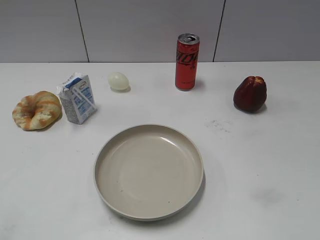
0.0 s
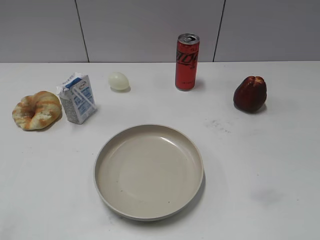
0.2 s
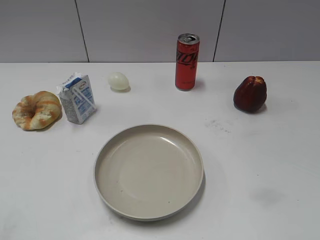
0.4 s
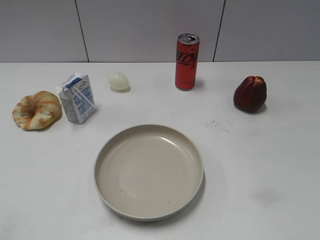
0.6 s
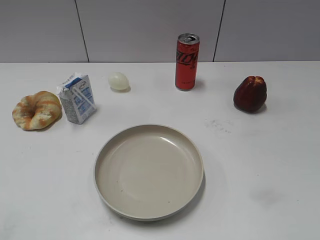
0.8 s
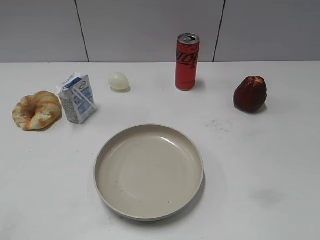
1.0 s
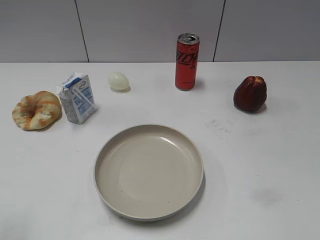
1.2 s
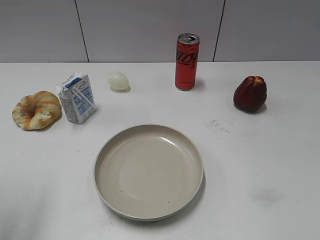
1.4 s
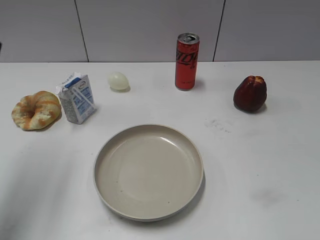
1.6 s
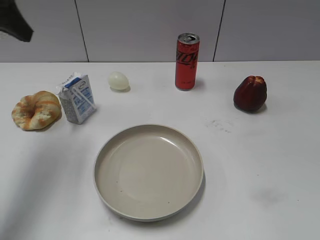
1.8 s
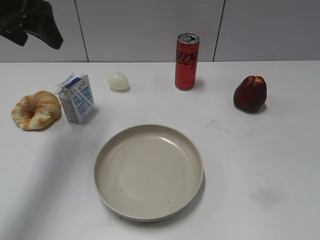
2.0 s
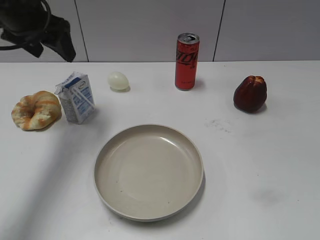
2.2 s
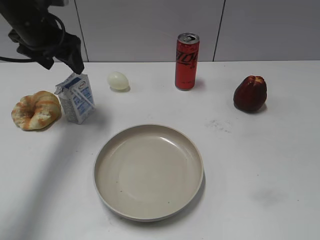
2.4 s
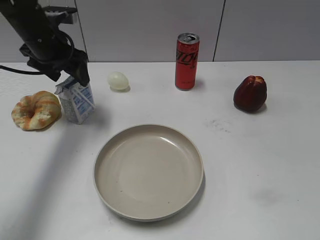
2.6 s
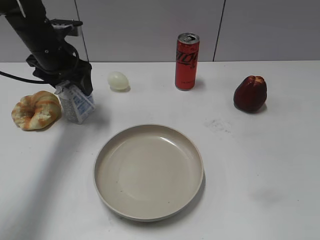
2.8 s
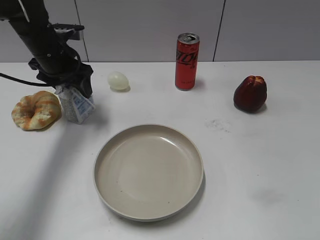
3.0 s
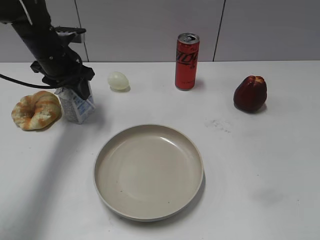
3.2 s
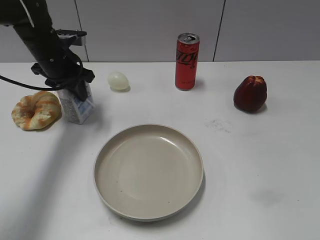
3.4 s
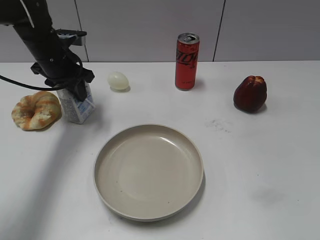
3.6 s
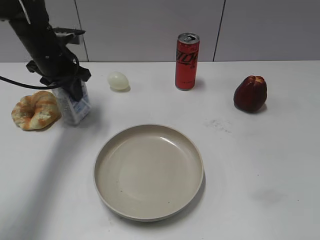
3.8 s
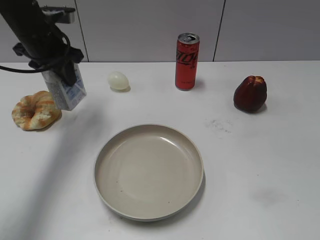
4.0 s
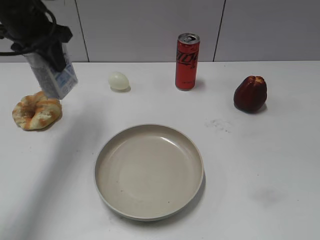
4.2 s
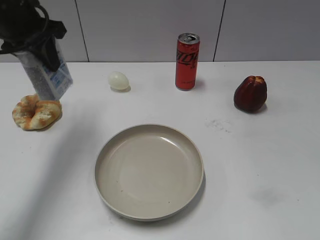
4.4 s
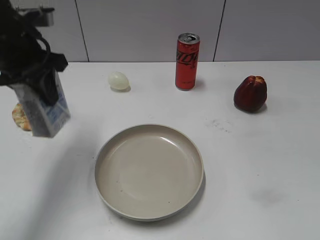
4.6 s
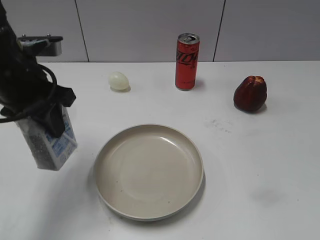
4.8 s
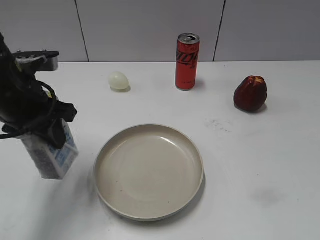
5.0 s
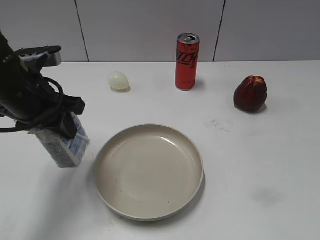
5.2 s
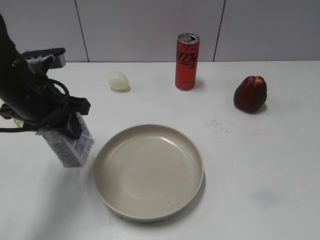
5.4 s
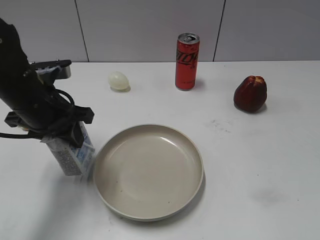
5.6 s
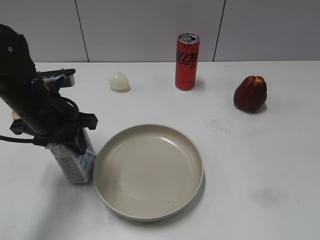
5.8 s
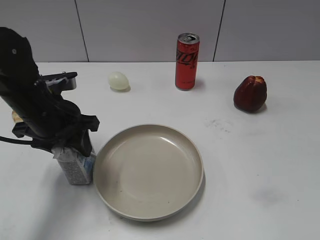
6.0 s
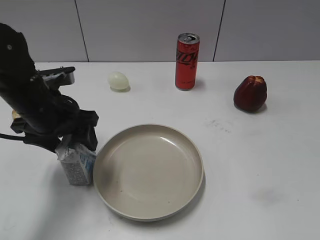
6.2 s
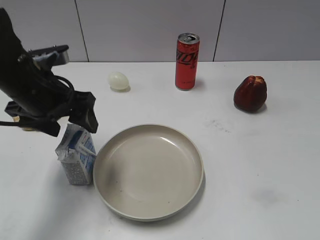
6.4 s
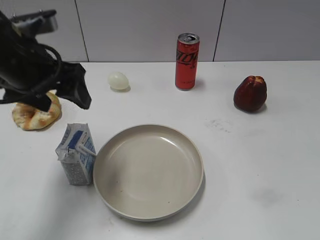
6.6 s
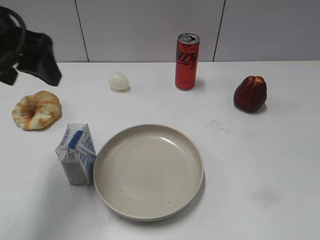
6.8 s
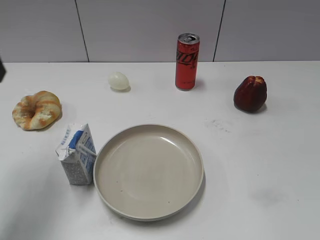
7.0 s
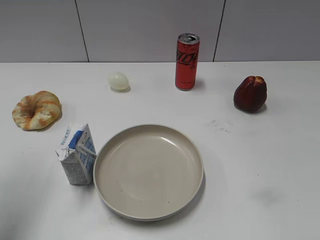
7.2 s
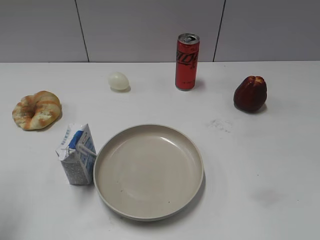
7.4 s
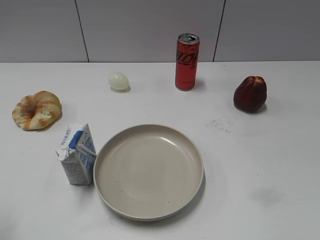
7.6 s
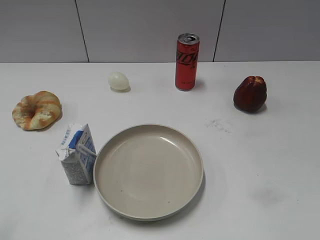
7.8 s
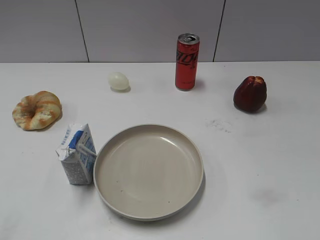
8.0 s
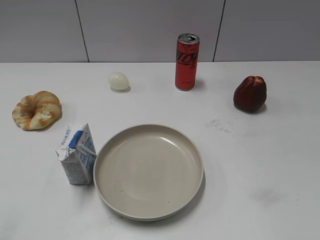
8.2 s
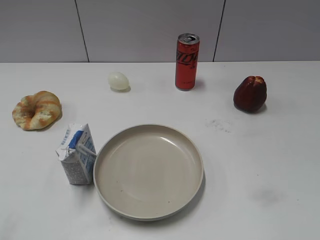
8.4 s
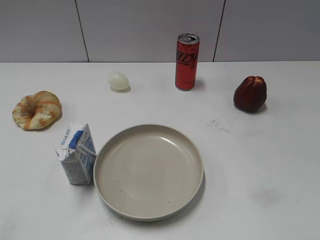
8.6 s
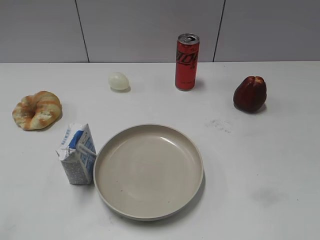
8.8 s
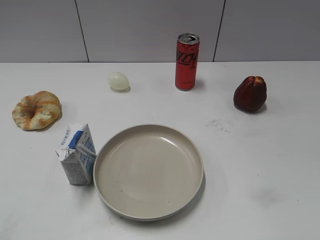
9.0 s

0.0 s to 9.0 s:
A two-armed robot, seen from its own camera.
Step, 0.8 to 3.6 s: Grasp the milk with left gripper.
Step, 4.0 to 6.2 s: Place the milk on the table with left gripper.
1.6 to 3.0 s: The left gripper goes about 25 cm forward, downward and to the right.
3.0 to 4.4 s: The left gripper heads upward and backward, covering some 10 cm, and closes.
4.4 to 6.0 s: The left gripper goes some 15 cm downward and backward.
6.0 to 7.6 s: The left gripper travels backward, to the left and upward by about 25 cm, and opens up.

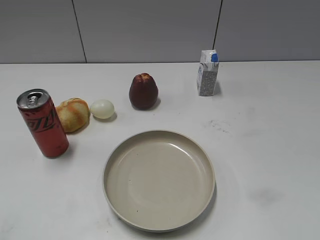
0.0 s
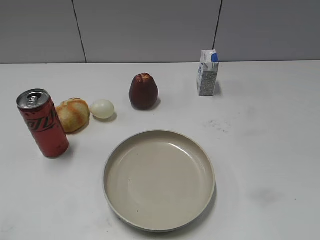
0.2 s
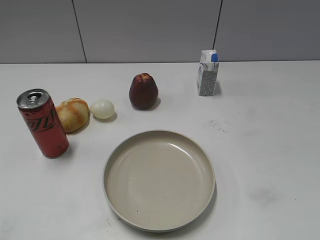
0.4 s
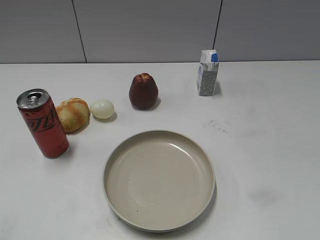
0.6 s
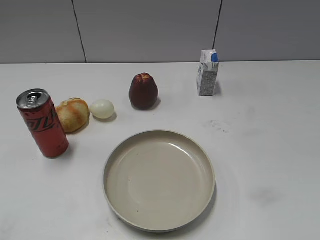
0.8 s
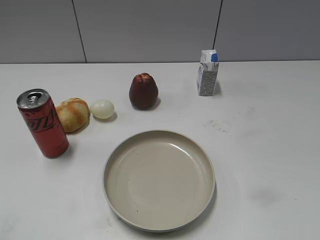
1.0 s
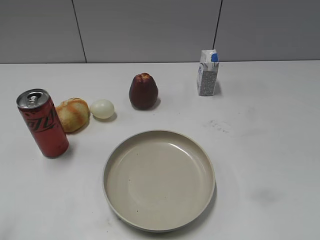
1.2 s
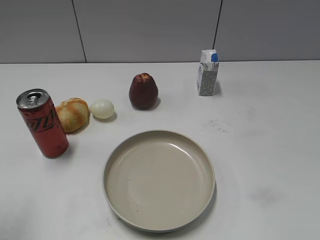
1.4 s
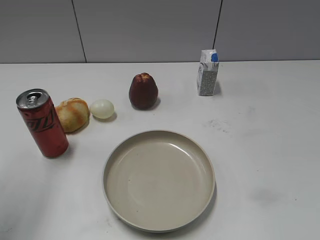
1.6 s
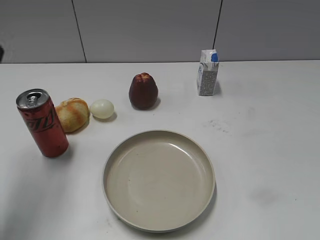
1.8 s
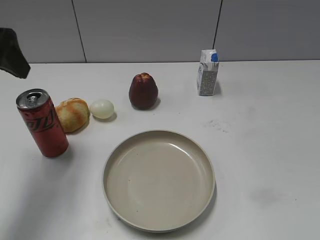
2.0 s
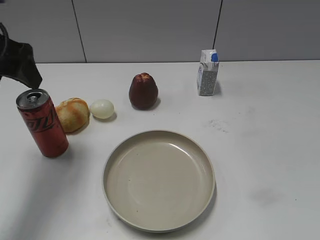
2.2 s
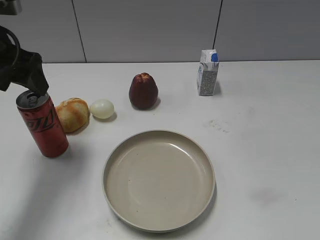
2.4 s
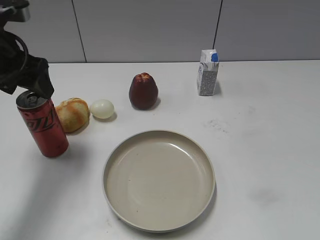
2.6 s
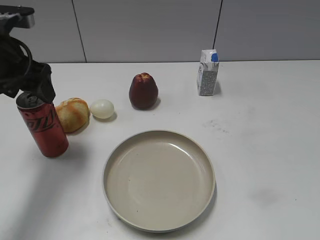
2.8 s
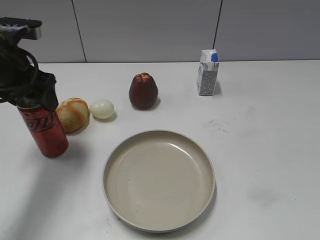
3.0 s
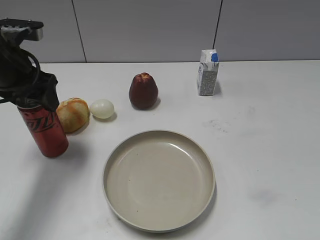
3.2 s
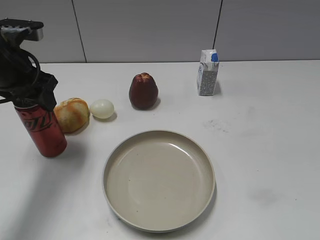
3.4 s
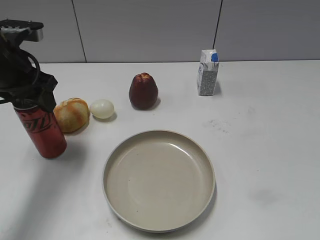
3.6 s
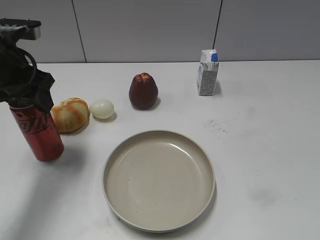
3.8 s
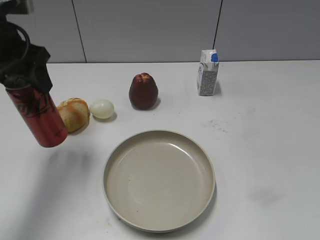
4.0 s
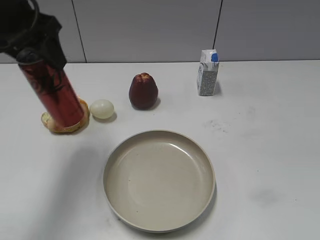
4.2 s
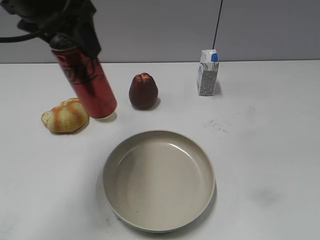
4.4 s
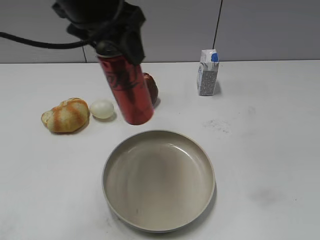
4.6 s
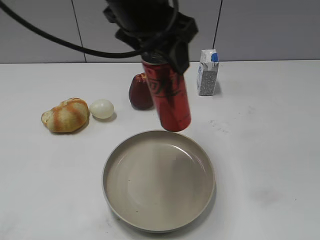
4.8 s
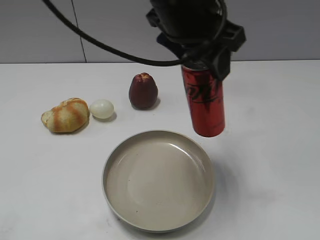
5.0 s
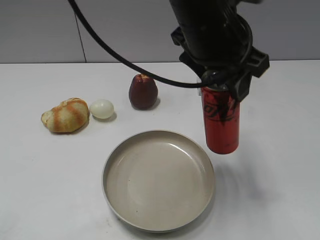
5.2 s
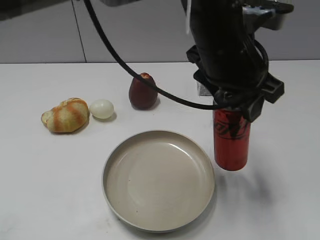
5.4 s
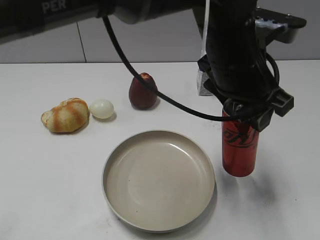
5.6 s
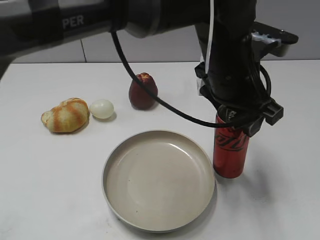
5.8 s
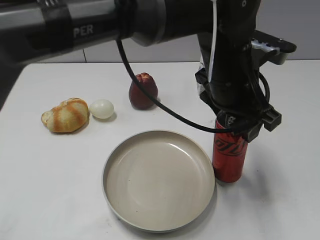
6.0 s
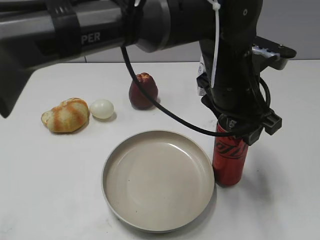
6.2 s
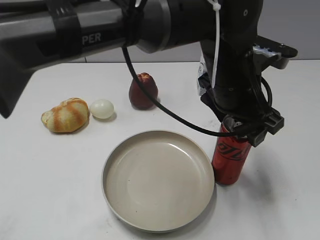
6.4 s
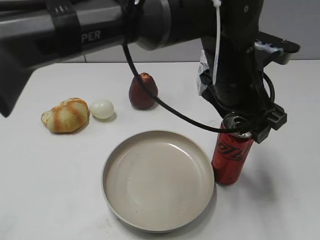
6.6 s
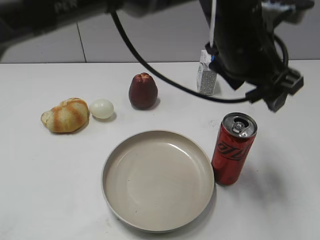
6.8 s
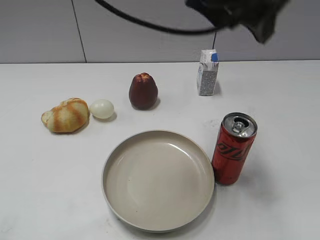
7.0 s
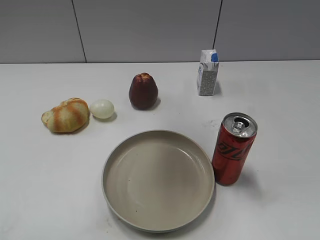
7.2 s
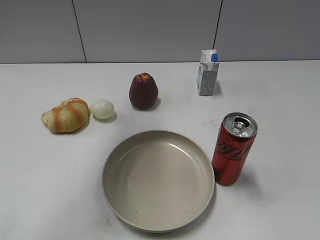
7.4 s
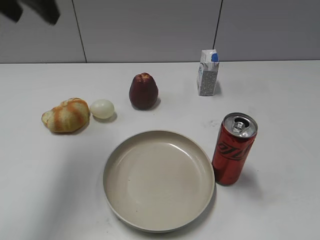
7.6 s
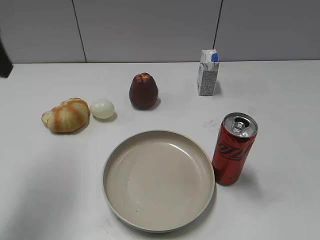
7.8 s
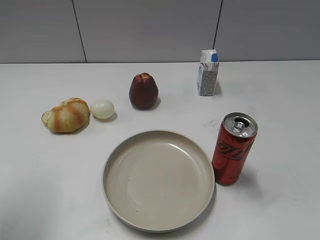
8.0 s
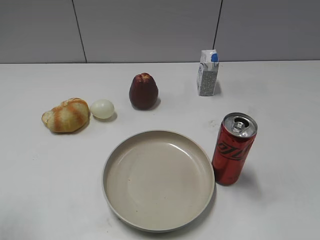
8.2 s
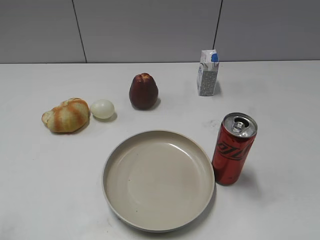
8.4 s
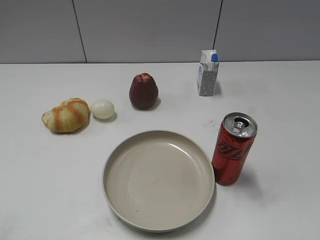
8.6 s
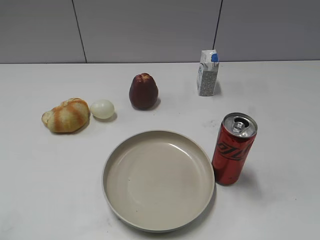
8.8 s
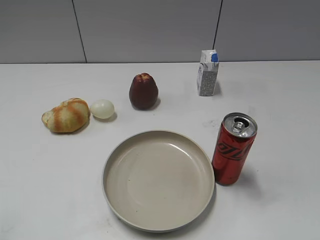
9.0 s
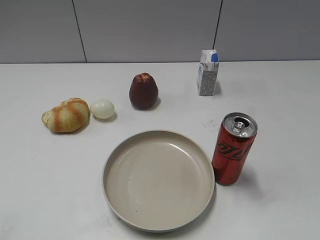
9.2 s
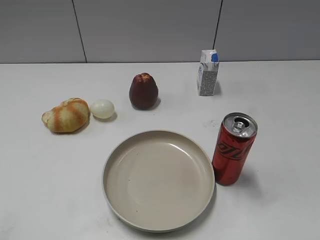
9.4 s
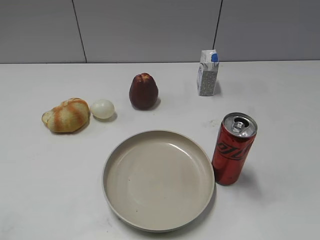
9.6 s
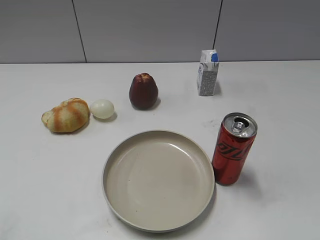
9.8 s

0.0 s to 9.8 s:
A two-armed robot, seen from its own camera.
Step, 1.0 to 3.4 s: Grasp the cola with left gripper.
Step, 3.8 to 6.6 s: Place the cola on the table with left gripper.
1.4 to 2.8 s: The left gripper shifts about 20 cm forward, downward and to the right.
2.8 to 4.2 s: The left gripper goes some 10 cm upward, and closes.
4.2 to 5.6 s: The left gripper heads to the right, covering about 30 cm.
5.6 to 7.0 s: The left gripper heads upward, covering some 10 cm, and opens up.
7.0 to 8.4 s: The left gripper shifts some 40 cm to the left and backward, and closes its fingers.
